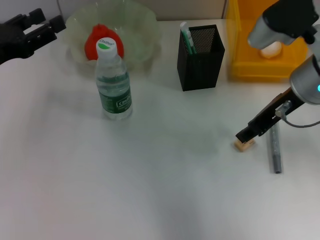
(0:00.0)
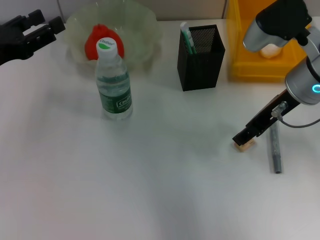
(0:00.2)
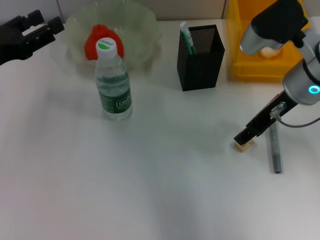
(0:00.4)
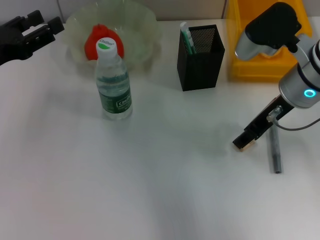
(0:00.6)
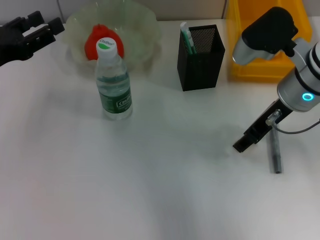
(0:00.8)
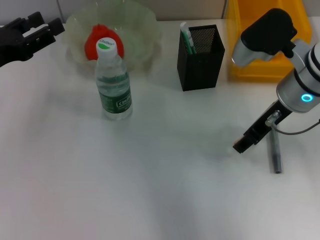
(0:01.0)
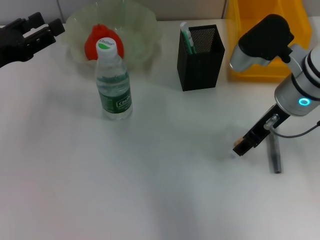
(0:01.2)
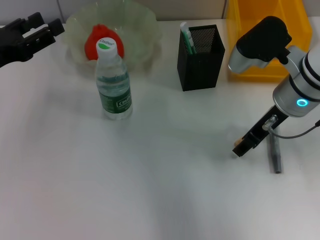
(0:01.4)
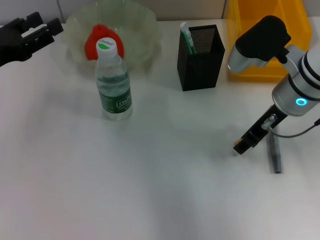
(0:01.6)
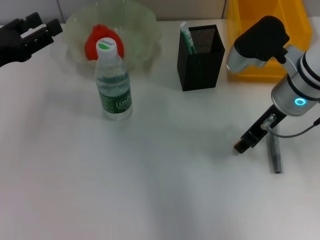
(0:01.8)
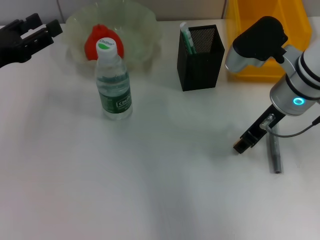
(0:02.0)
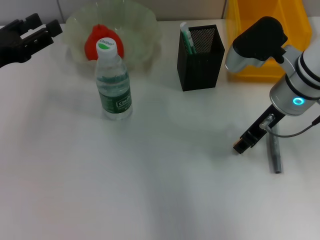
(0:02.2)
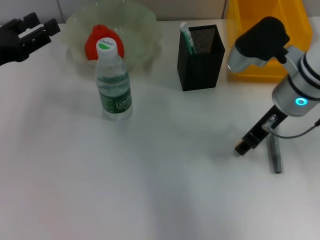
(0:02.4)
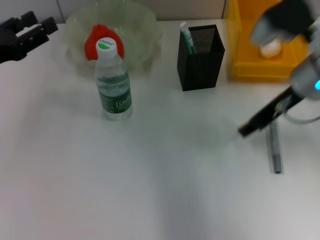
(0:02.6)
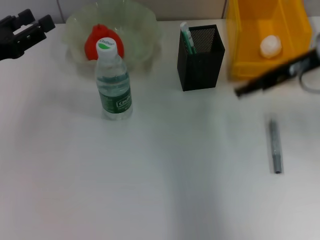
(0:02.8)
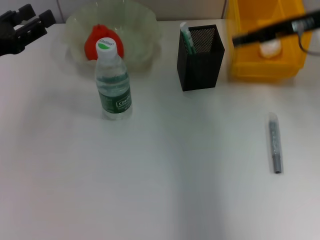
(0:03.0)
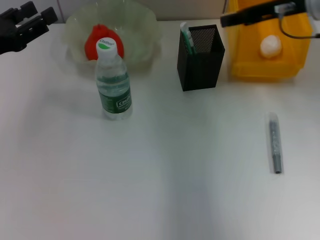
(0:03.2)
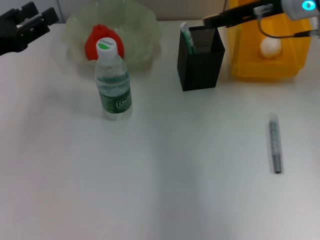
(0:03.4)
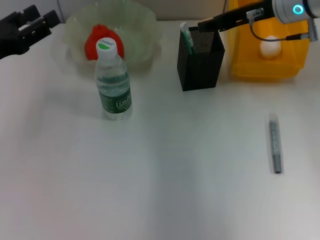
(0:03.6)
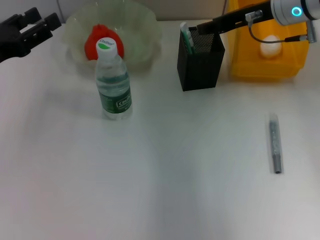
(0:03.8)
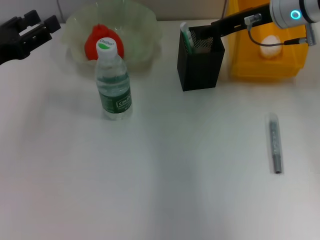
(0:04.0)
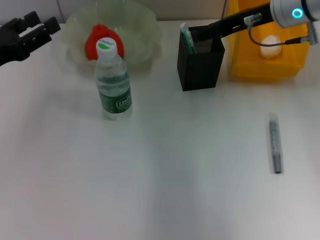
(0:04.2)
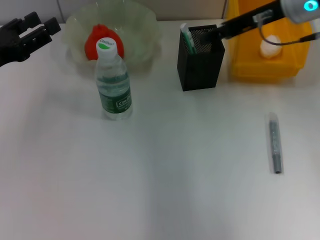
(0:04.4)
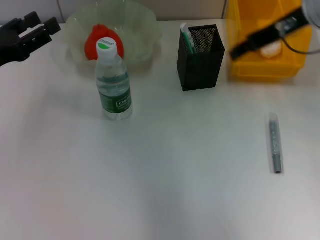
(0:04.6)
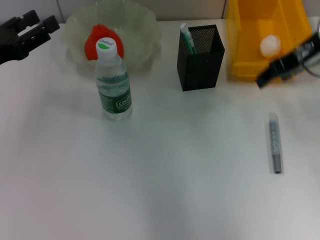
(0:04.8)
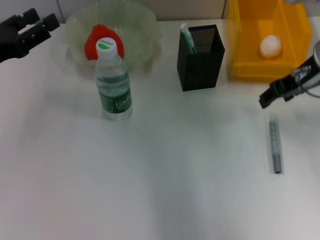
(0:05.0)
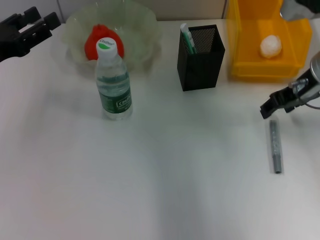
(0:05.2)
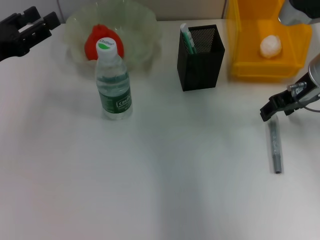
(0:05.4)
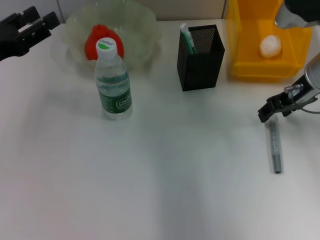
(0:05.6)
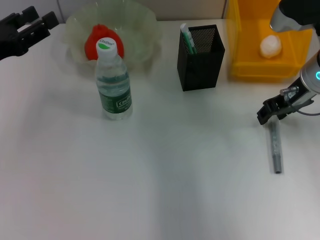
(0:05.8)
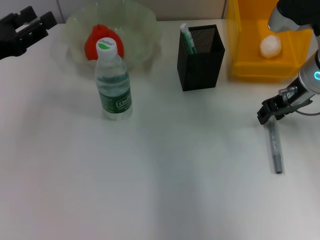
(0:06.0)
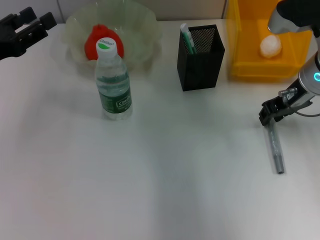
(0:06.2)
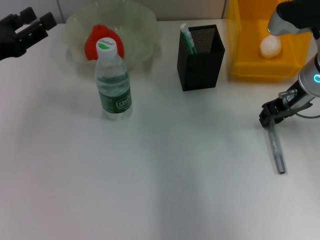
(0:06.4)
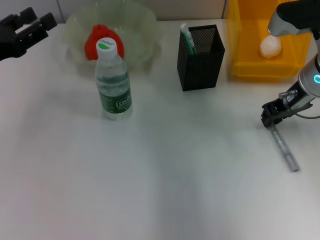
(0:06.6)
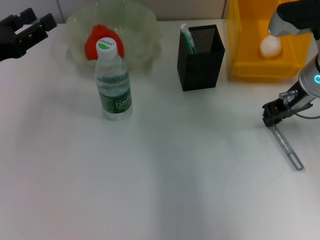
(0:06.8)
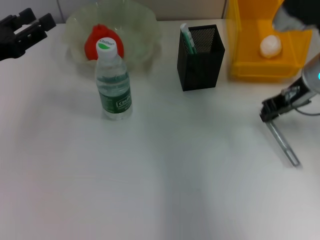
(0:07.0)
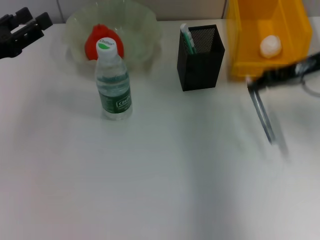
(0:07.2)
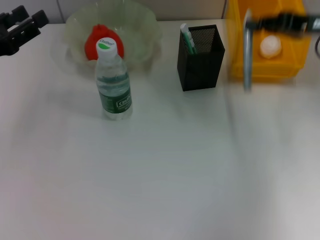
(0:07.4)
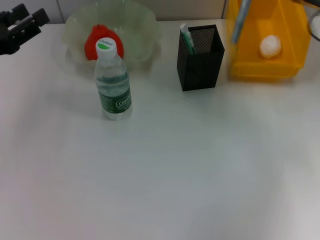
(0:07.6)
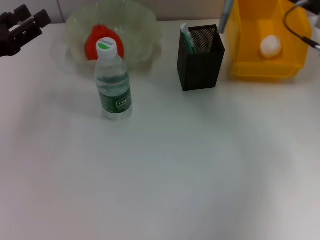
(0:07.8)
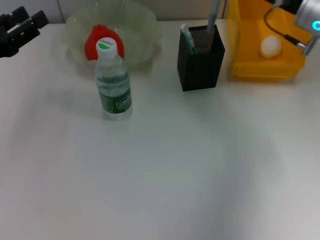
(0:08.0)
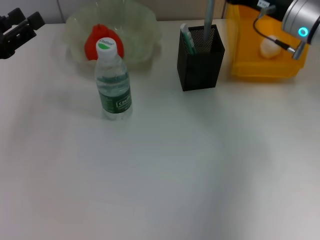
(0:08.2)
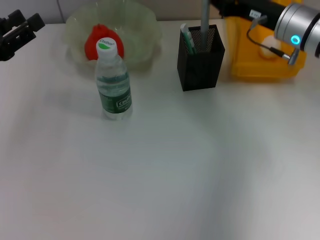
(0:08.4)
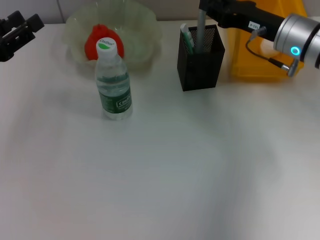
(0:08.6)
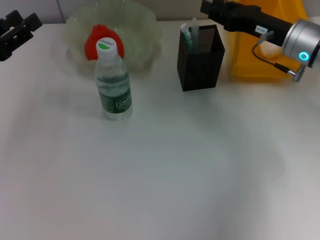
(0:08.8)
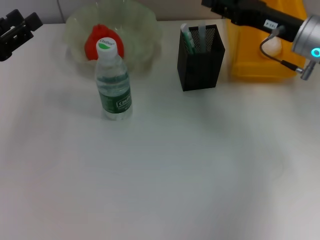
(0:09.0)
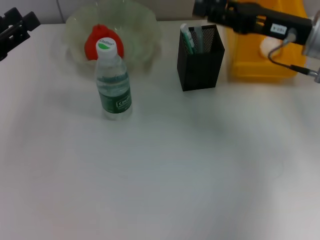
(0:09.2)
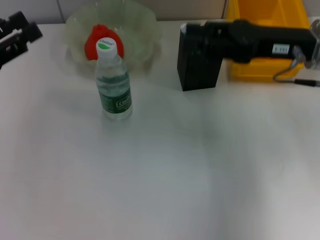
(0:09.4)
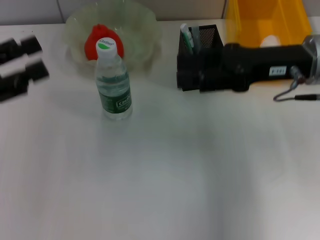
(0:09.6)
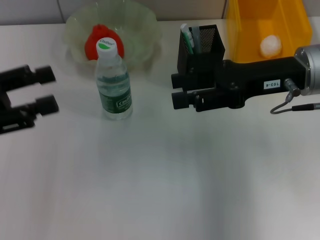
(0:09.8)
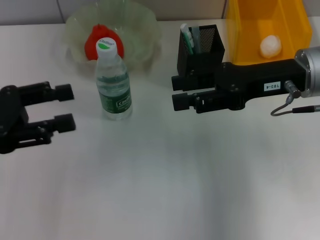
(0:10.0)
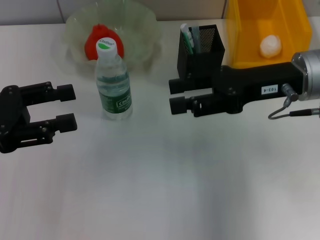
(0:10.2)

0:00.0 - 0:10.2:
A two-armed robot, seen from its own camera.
Step, 0:00.0 - 0:02.2: Grab the eraser with the right hand.
Step, 0:02.4 - 0:04.0: Put the eraser into the pen holder with the right hand.
Step, 0:04.2 - 0:06.8: Grab the gray glue with the right hand.
Step, 0:07.0 - 0:08.6: Place the gray glue into the pen holder with the right hand.
0:00.0 - 0:01.4: There are only small adjustments of the grippers.
0:01.4 - 0:03.0: The right gripper goes approximately 10 cm upward and to the right.
0:03.0 - 0:04.4: The right gripper ends up about 5 cm from where it was.
0:04.4 - 0:05.8: The right gripper moves downward, roughly 10 cm.
0:05.8 - 0:07.2: The right gripper moves roughly 5 cm, and closes up.
0:07.2 - 0:08.8: The right gripper goes about 5 cm downward.
0:08.8 - 0:10.2: The right gripper travels backward by approximately 5 cm, and opens up.

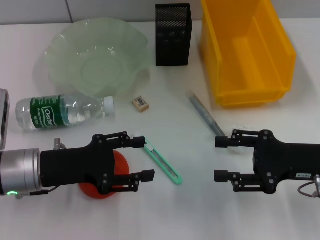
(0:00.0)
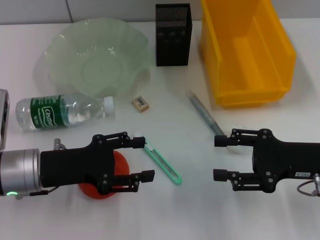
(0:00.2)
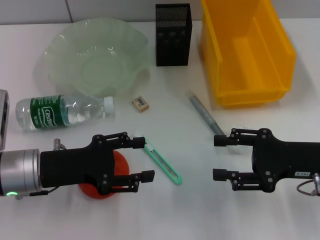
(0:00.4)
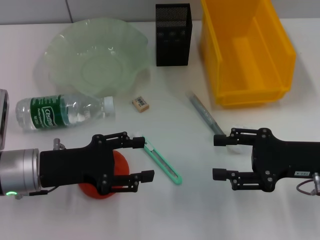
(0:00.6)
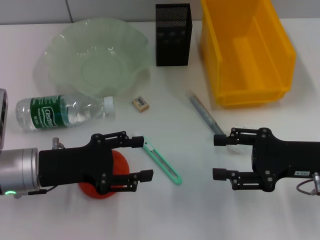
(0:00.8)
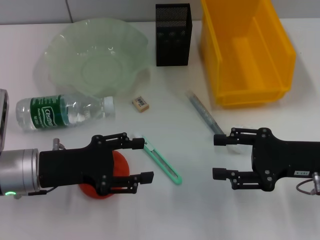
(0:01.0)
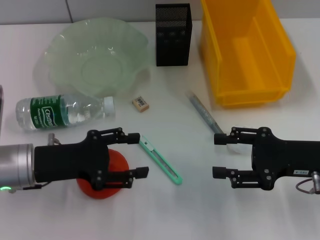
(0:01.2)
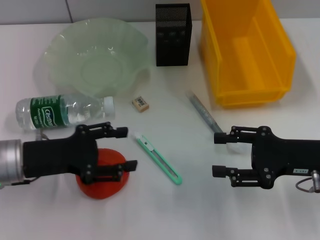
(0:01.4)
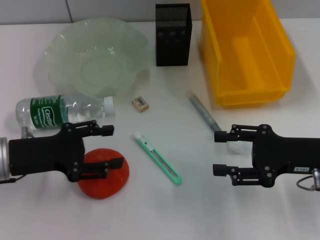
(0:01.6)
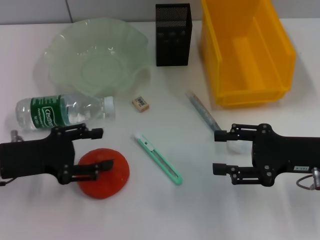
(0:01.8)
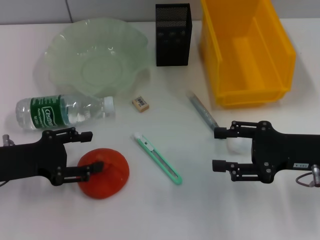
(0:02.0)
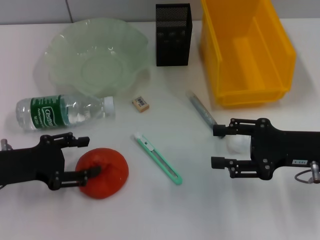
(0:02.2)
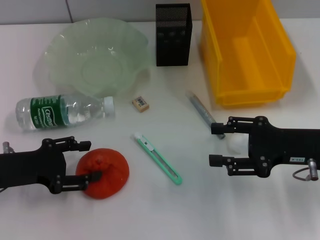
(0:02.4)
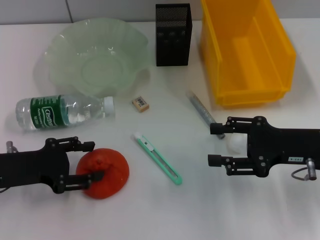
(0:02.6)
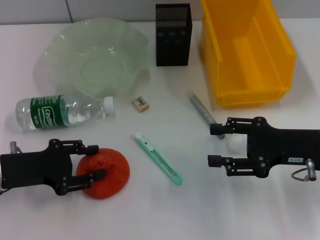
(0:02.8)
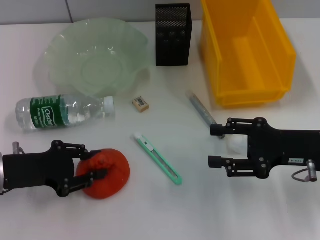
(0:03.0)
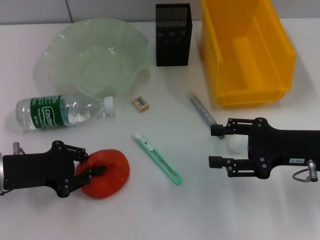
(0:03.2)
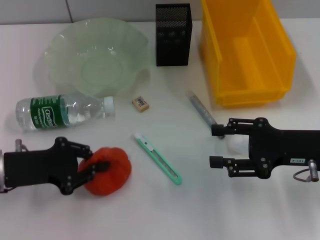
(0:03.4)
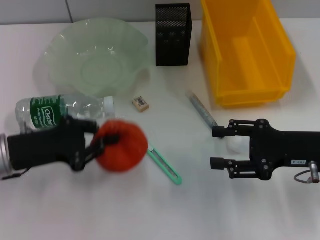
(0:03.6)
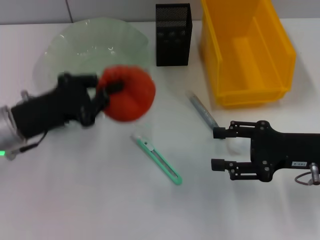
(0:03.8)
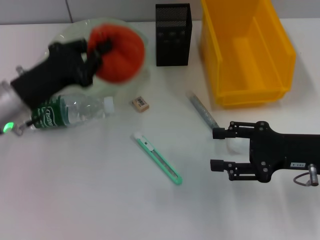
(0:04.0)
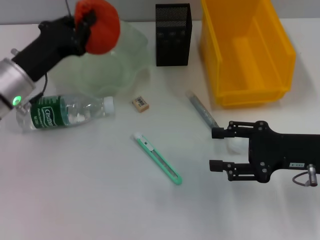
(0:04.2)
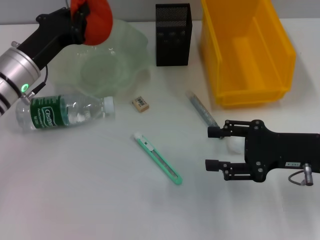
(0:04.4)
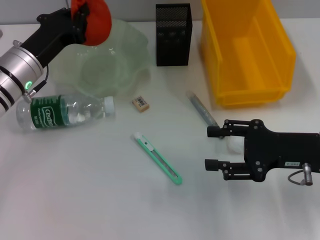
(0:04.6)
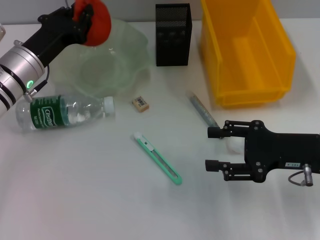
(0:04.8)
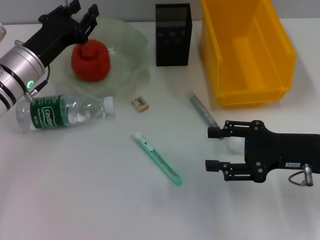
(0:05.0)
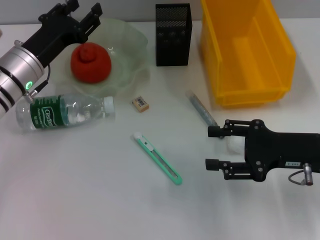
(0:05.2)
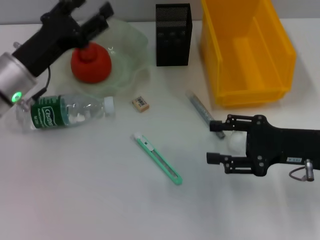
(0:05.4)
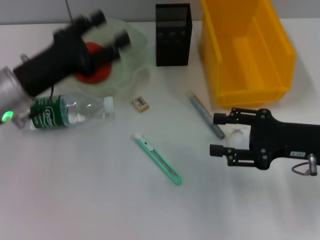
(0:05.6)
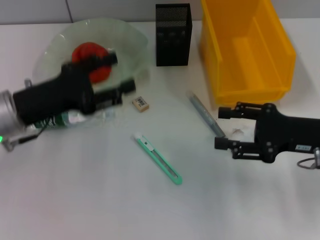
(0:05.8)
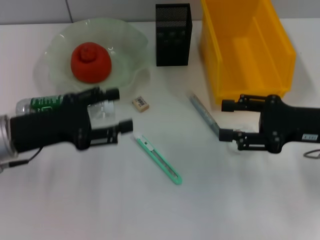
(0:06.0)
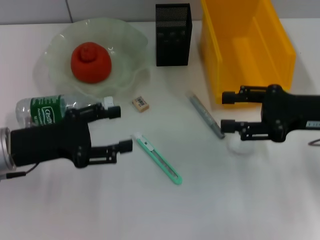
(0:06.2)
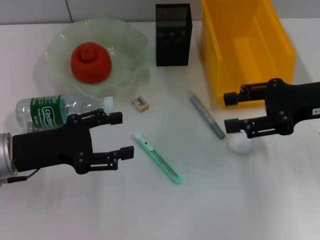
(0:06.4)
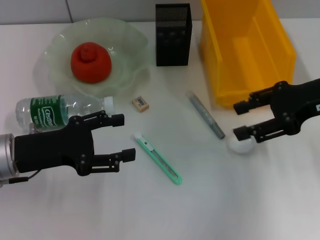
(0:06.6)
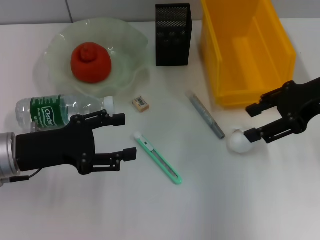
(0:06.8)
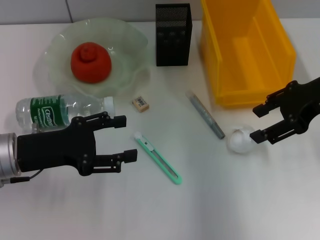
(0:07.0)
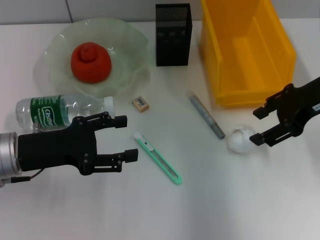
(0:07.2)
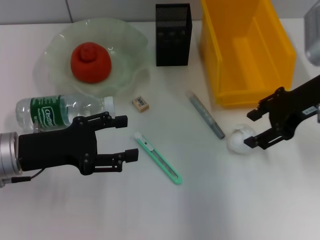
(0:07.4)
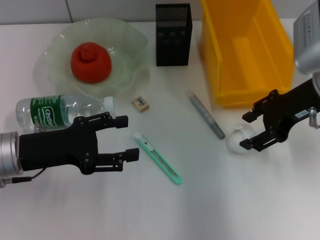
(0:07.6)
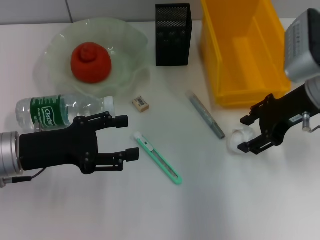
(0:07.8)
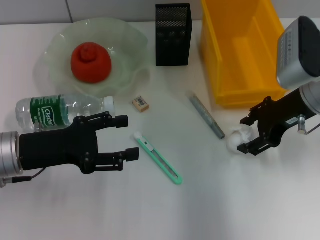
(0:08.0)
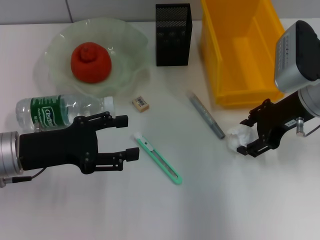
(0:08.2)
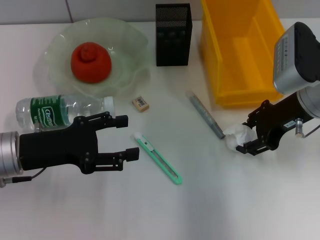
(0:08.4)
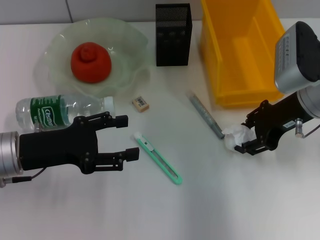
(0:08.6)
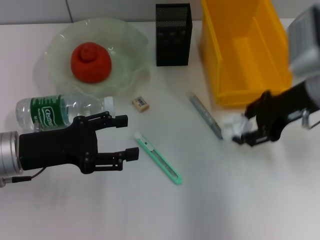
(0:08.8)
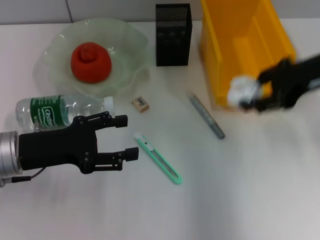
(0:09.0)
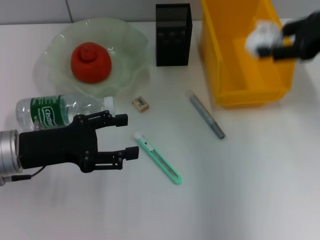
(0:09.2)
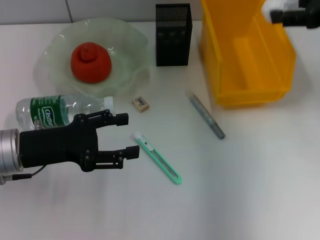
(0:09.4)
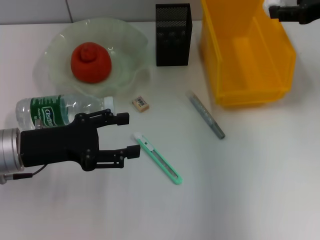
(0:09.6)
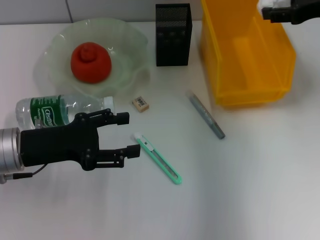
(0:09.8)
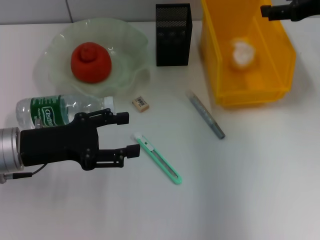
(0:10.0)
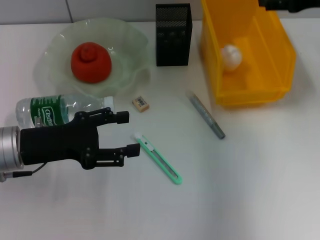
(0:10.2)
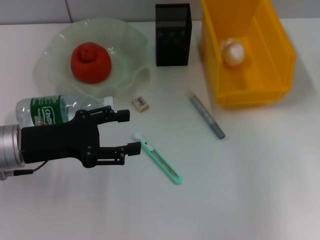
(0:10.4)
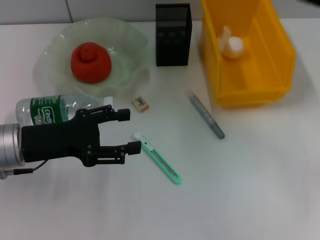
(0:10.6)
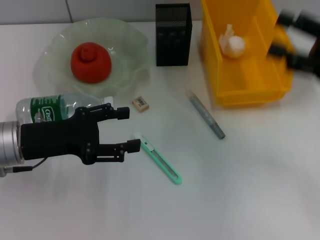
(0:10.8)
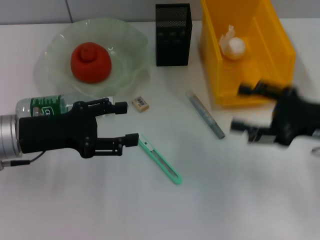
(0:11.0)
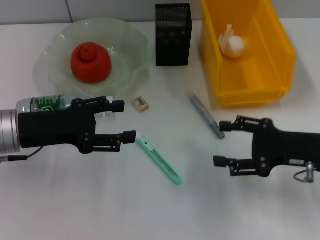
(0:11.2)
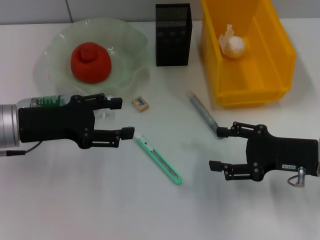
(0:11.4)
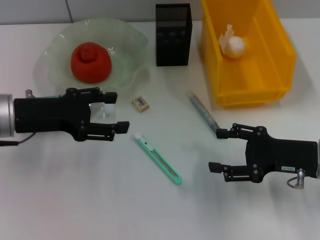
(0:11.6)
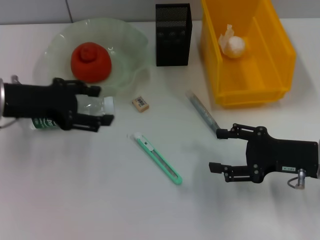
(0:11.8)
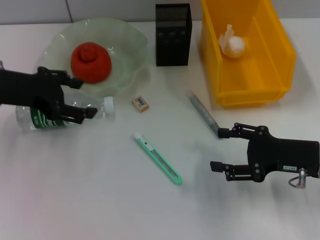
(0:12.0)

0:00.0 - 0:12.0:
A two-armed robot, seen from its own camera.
Step, 0:00.0 - 0:03.2: Grab the orange with the left hand.
Step, 0:03.4 - 0:05.2: Place the orange into the fruit bowl with the left hand.
Step, 0:05.6 - 0:08.4: Grab the paper ball with the right hand.
Step, 0:08.6 - 0:10.0: Place the paper ball into the trash can with the right hand.
0:00.0 - 0:01.6: The grippers stay close to where they were, moving slightly.
0:01.6 - 0:03.0: The left gripper closes up.
0:03.0 - 0:04.4: The left gripper moves forward and to the right, roughly 10 cm, and closes.
0:04.4 - 0:06.0: The left gripper is displaced backward by roughly 10 cm, and opens.
0:06.0 - 0:07.6: The right gripper is displaced forward and upward by approximately 10 cm.
0:07.6 - 0:09.0: The grippers move only a little.
0:09.0 - 0:10.4: The right gripper travels to the right by roughly 5 cm, and opens.
0:10.4 - 0:12.0: The right gripper goes roughly 20 cm downward and backward. The left gripper is displaced upward and forward by approximately 10 cm.
